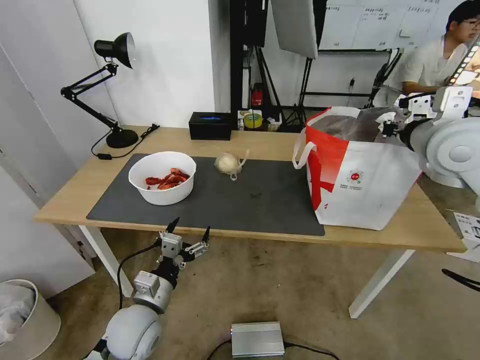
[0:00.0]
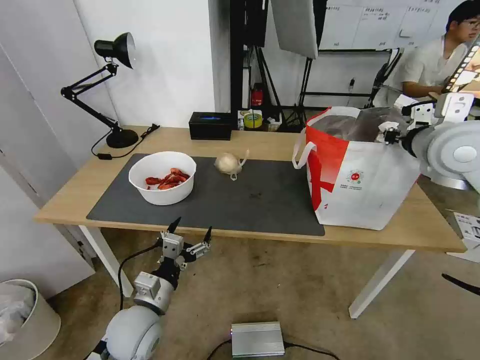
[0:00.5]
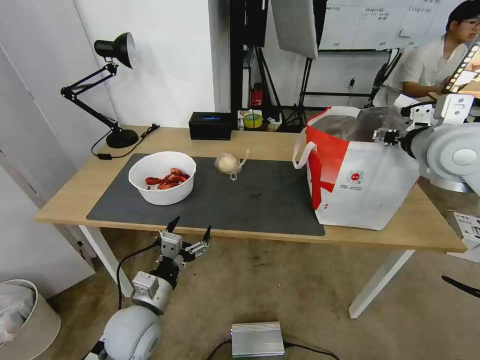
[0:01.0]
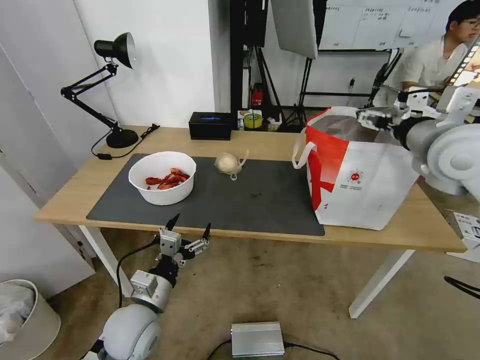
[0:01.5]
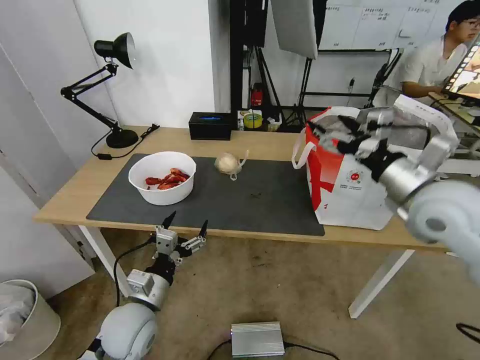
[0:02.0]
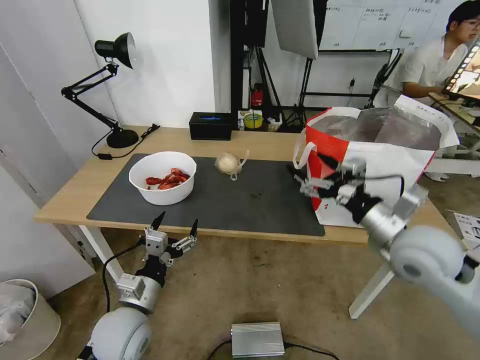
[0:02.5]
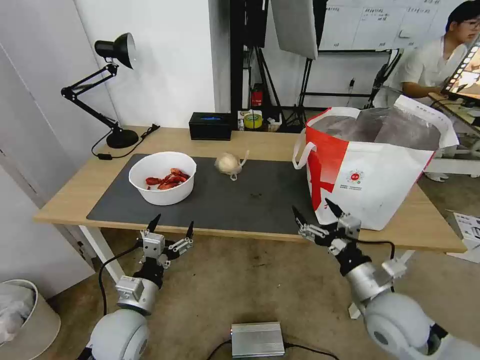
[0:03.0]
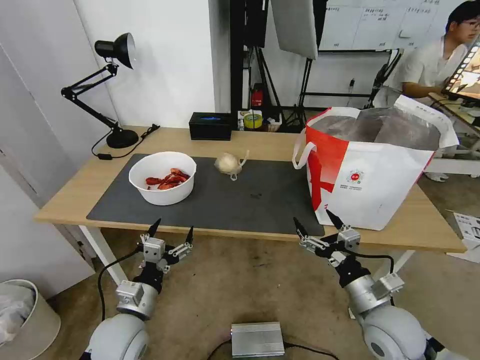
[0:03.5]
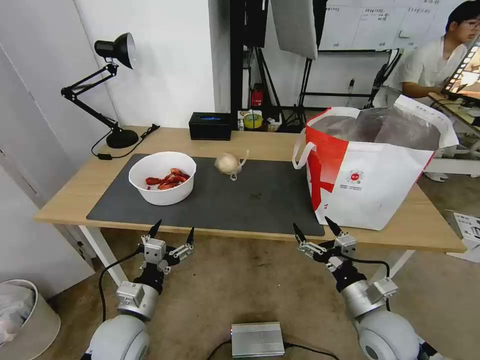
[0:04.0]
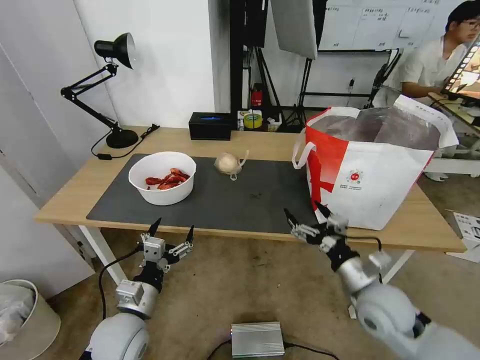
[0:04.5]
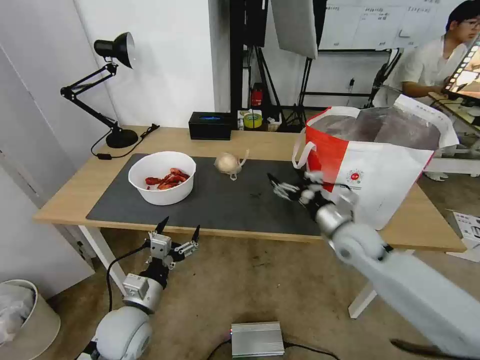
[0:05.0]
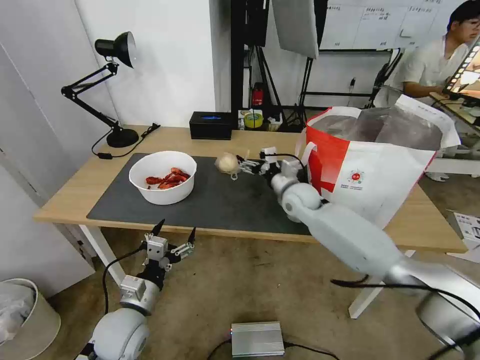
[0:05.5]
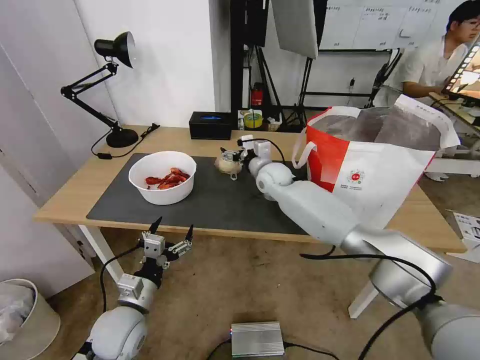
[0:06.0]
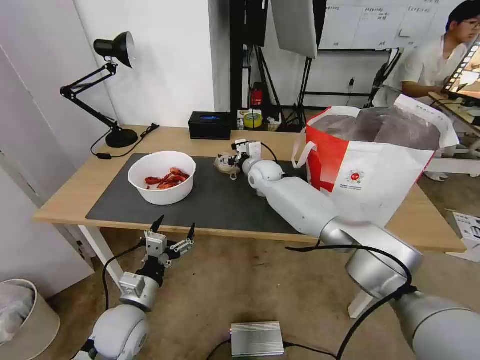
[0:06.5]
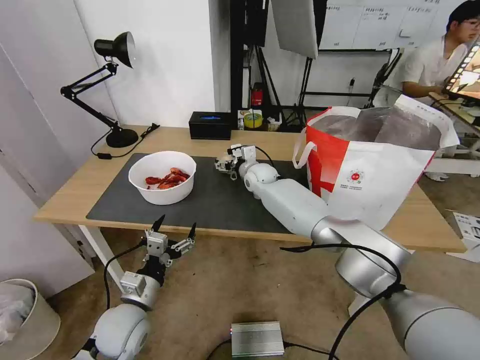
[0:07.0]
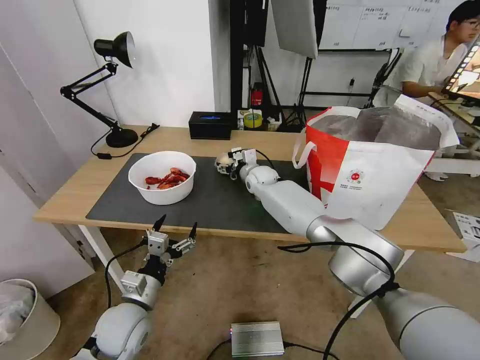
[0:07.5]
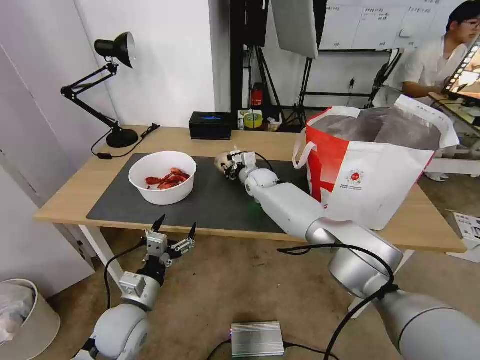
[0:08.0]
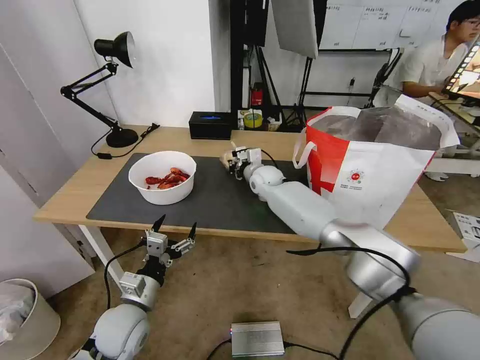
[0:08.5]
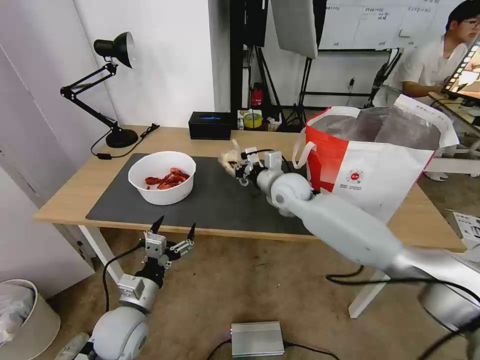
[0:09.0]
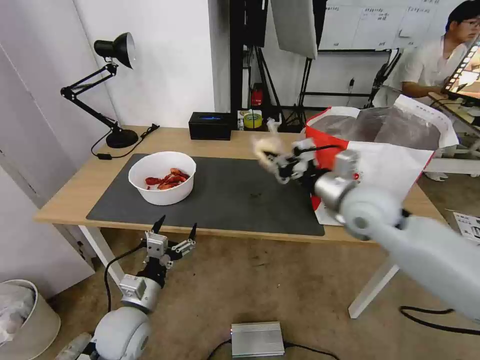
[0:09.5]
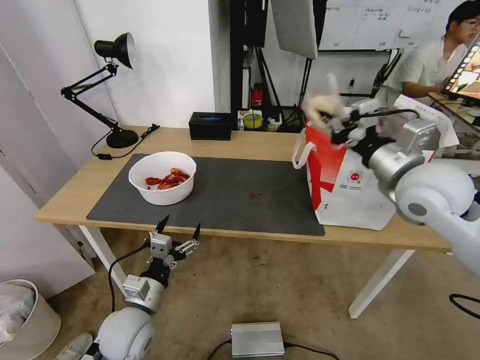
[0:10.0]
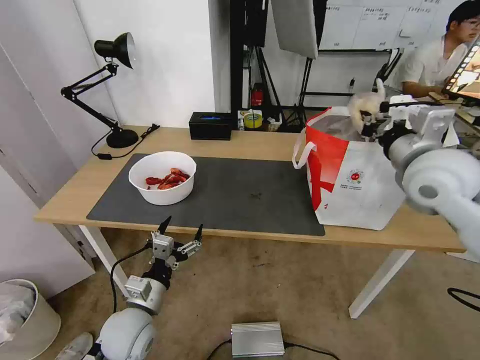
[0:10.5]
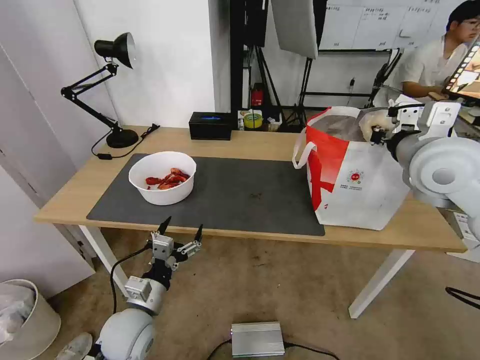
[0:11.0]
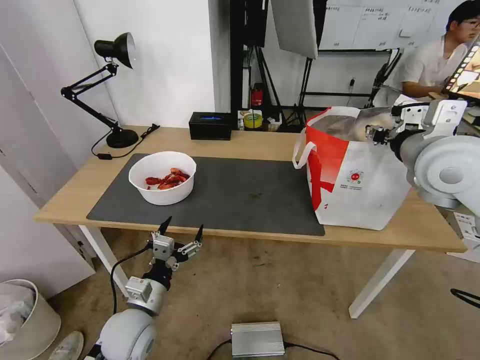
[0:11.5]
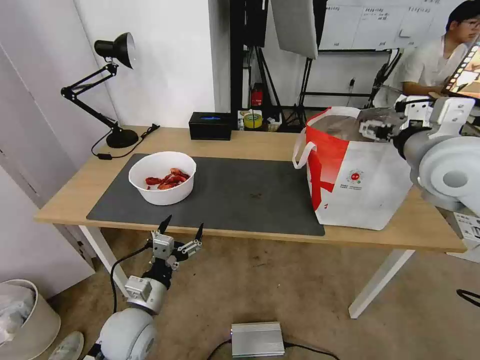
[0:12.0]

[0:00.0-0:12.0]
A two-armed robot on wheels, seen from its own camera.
Task of the whole recording: Pick up the trash from the table and place it into the takeout bag.
0:00.0 to 0:02.0: The right gripper goes roughly 10 cm downward and backward, and opens up.
0:02.0 to 0:04.0: The right gripper is displaced downward and backward by about 25 cm.
0:04.0 to 0:06.0: The right gripper is displaced forward and to the left by roughly 40 cm.
0:06.0 to 0:08.0: The right gripper goes some 5 cm downward, and closes up.
0:08.0 to 0:10.0: The right gripper goes about 40 cm backward, to the right and upward.
0:10.0 to 0:12.0: The right gripper opens.

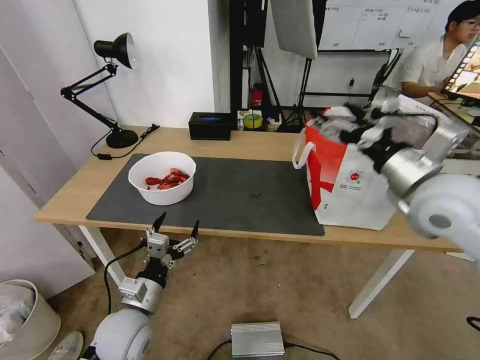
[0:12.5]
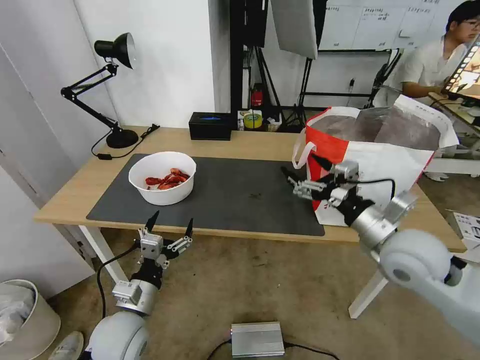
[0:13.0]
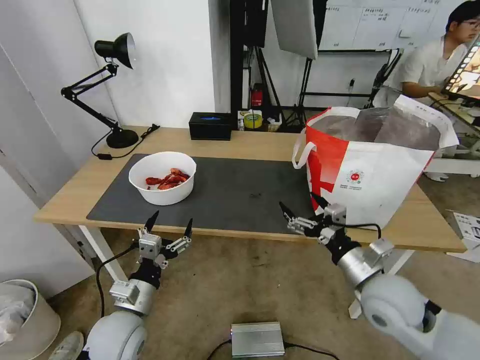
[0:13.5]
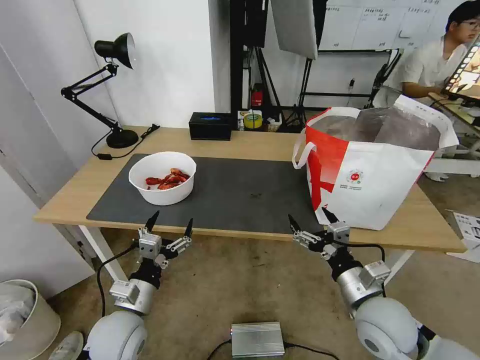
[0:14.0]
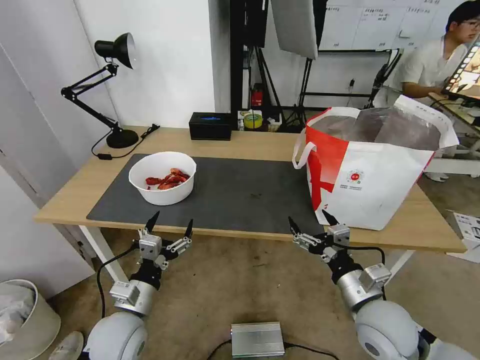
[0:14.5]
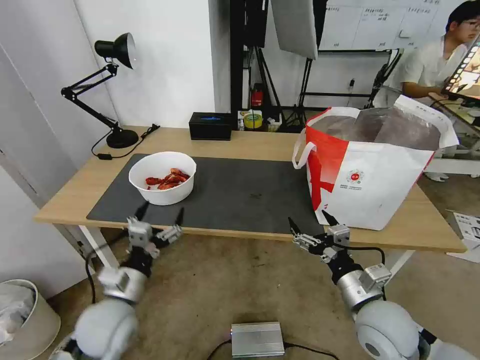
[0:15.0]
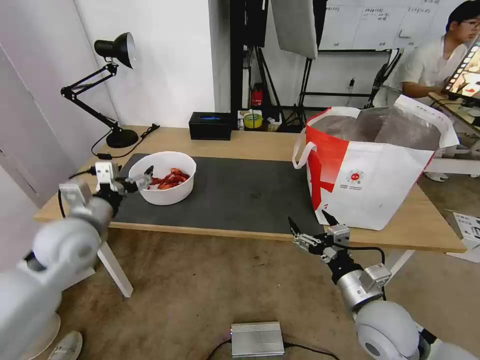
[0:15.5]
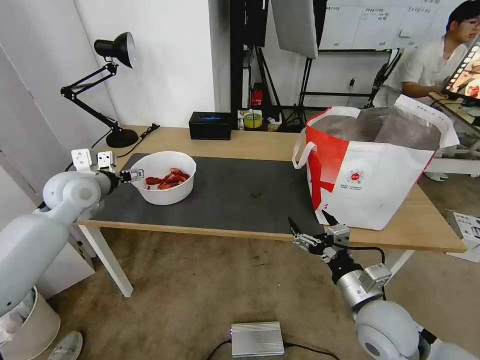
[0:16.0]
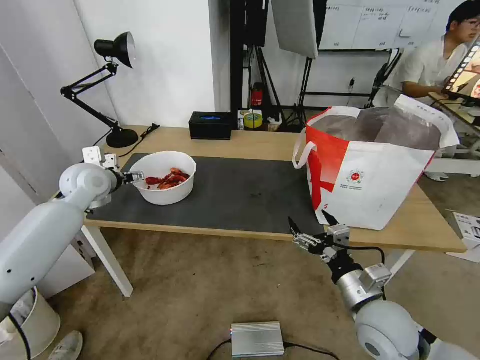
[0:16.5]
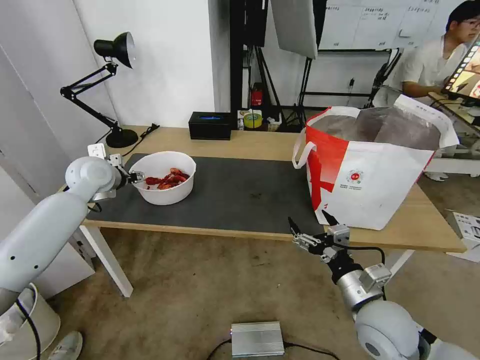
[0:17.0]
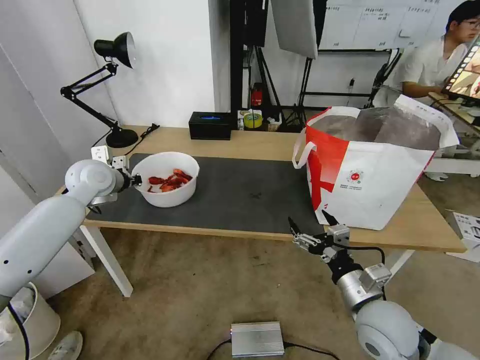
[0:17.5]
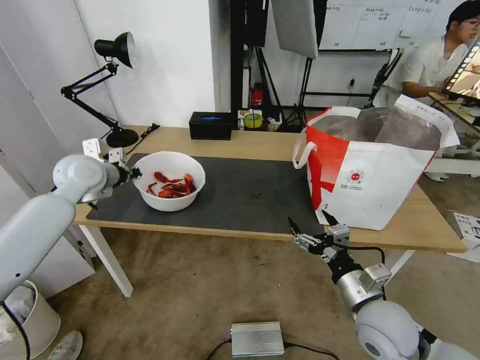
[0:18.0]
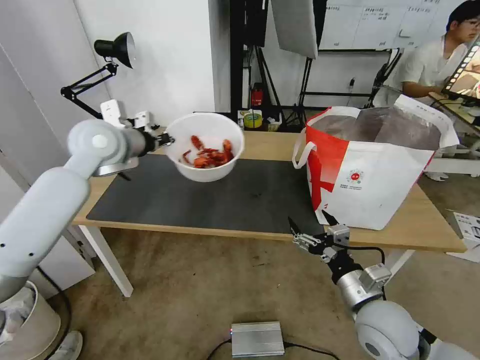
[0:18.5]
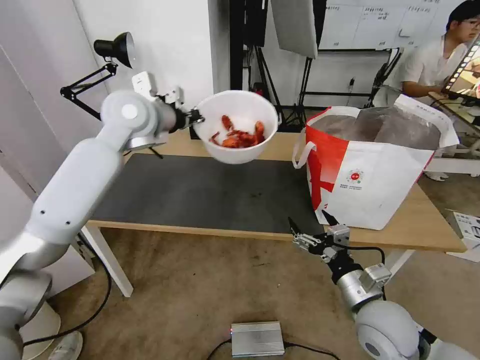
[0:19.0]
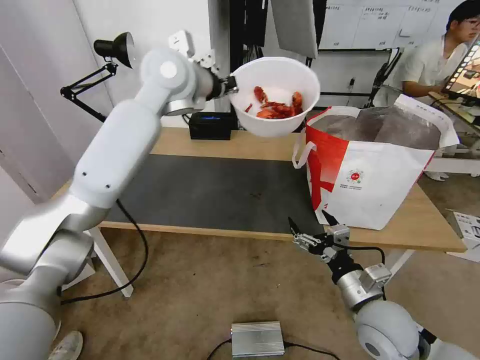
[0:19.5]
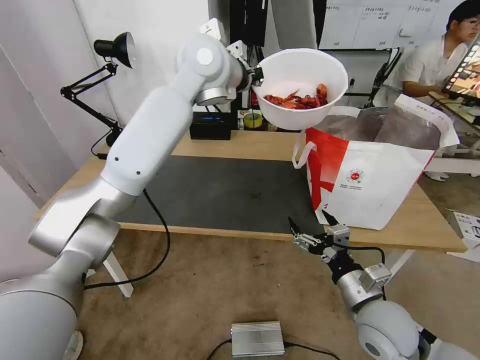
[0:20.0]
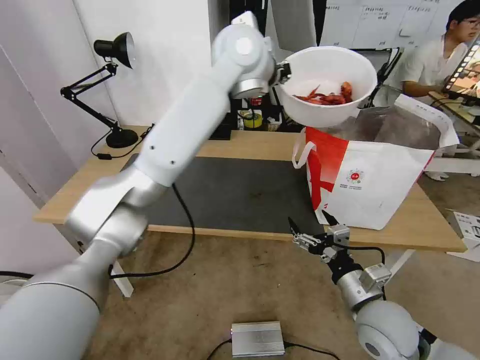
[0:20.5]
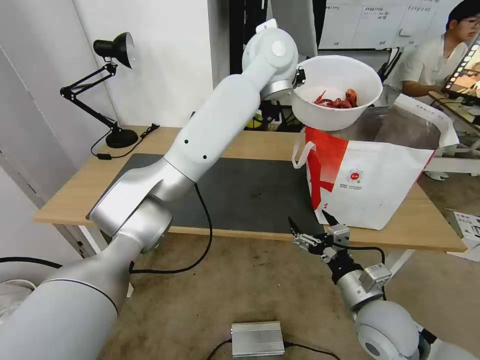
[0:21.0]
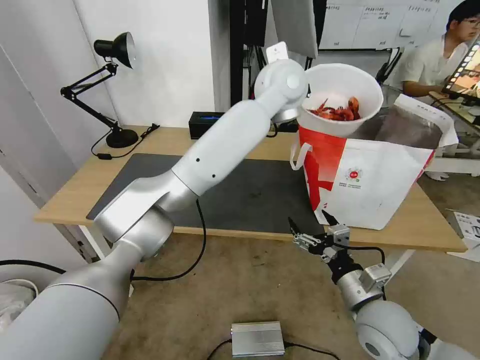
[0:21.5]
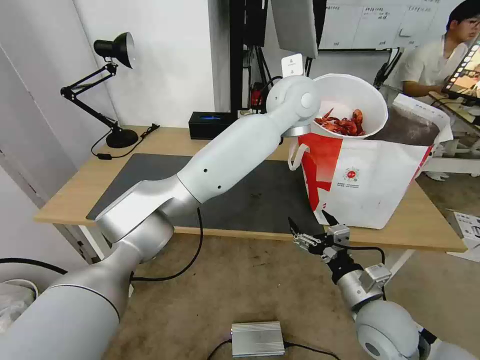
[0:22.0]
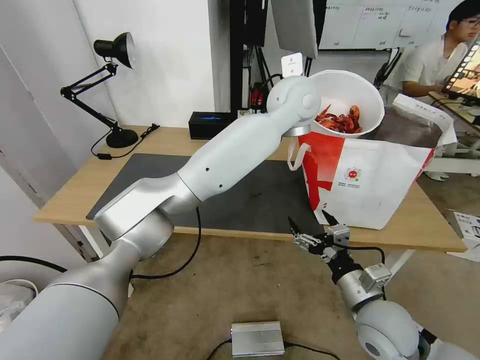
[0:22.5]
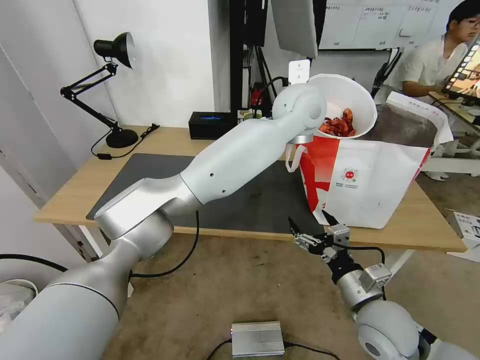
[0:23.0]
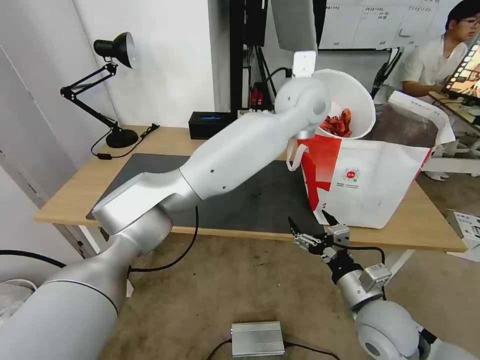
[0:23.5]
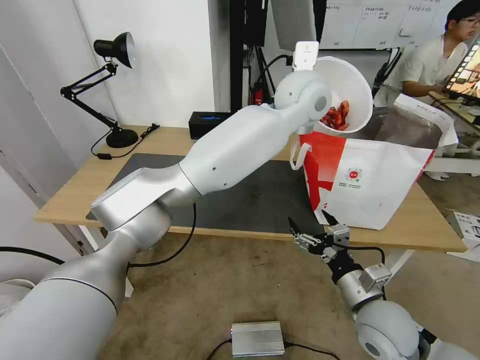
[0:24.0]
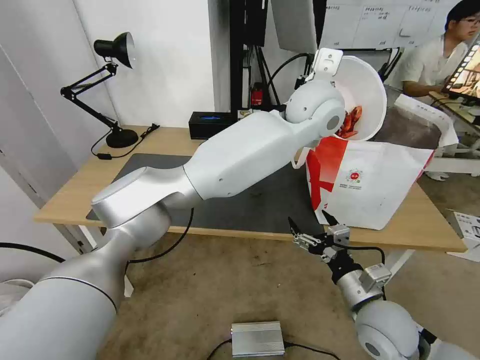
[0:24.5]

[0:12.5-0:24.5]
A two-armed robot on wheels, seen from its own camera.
Task of the whole recording: Pick up the trash from the table and place it into the takeout bag.
0:12.5 to 0:14.5: The right gripper shifts about 25 cm downward and backward.
0:14.5 to 0:16.5: The left gripper goes roughly 35 cm forward, upward and to the left.
0:16.5 to 0:18.5: The left gripper shifts roughly 15 cm upward and to the right, and closes.
0:18.5 to 0:20.5: The left gripper goes approximately 30 cm to the right and upward.
0:20.5 to 0:22.5: The left gripper travels to the right and downward by roughly 10 cm.

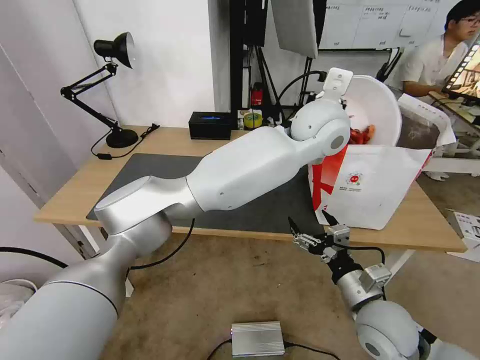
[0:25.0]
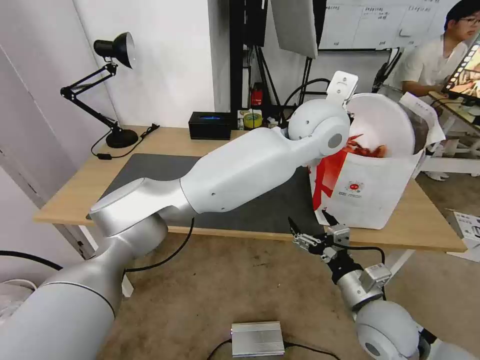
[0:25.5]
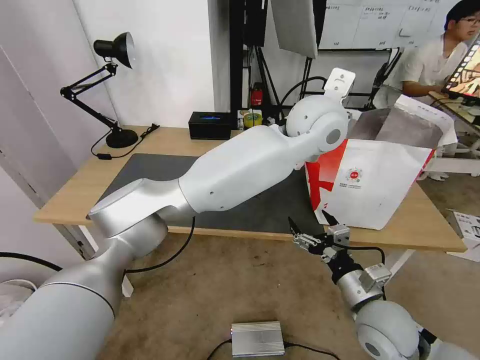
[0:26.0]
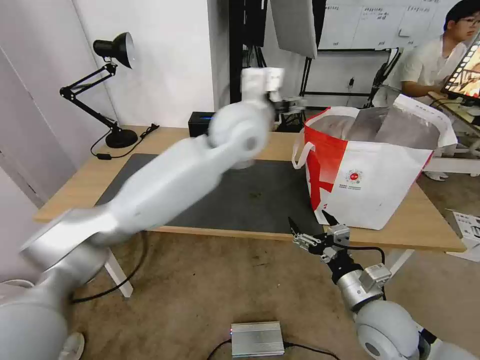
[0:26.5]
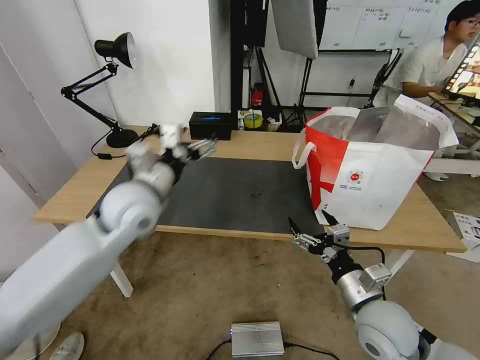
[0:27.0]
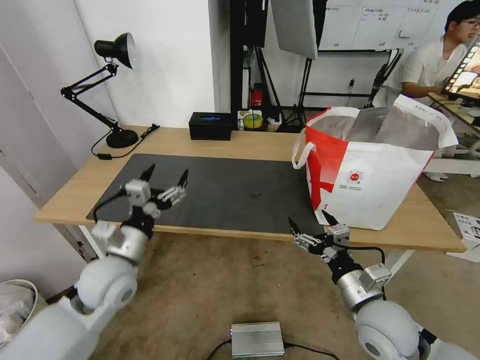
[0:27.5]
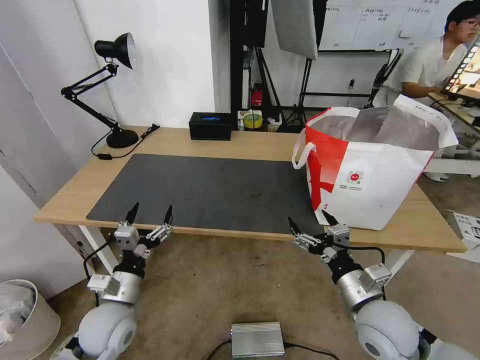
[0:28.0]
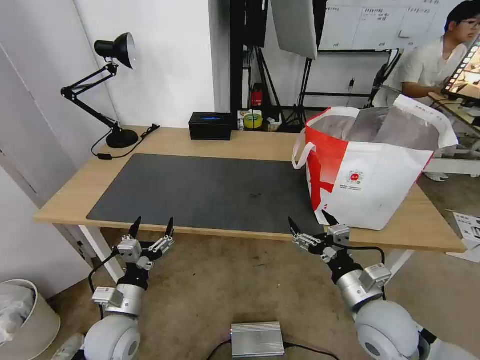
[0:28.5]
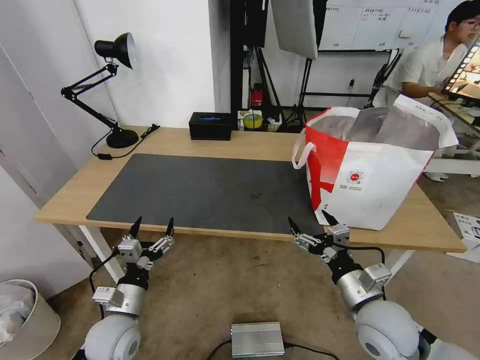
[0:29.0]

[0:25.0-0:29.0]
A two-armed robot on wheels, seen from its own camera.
Task of the whole recording: Pick up the trash from the table and place it into the takeout bag.
0:25.0 to 0:27.0: The left gripper travels to the left by roughly 35 cm, and opens up.
0:27.0 to 0:29.0: The left gripper moves downward and backward, about 25 cm.
